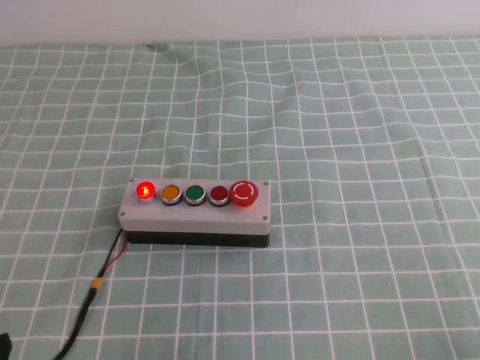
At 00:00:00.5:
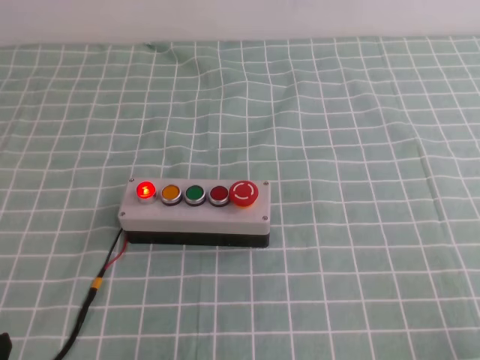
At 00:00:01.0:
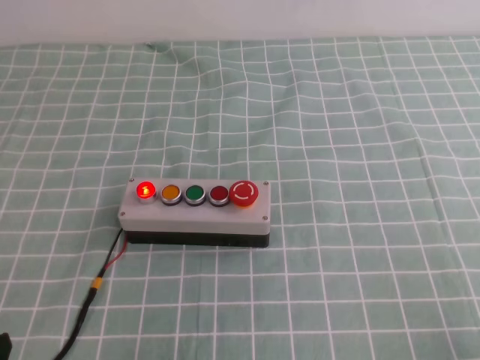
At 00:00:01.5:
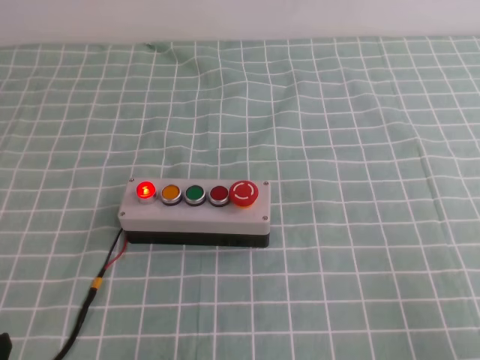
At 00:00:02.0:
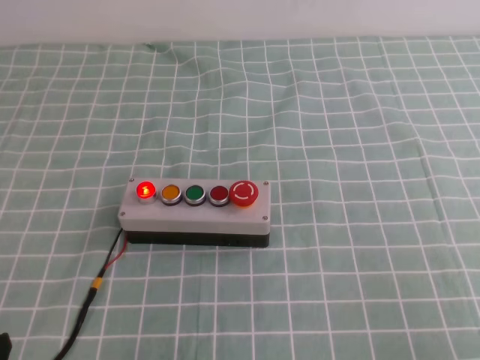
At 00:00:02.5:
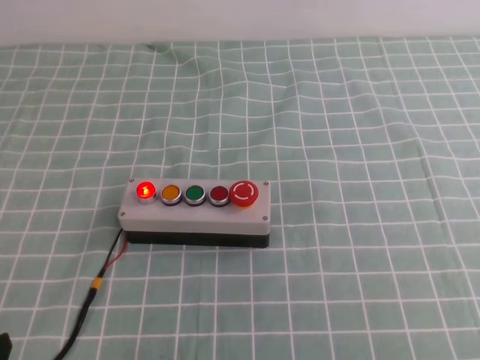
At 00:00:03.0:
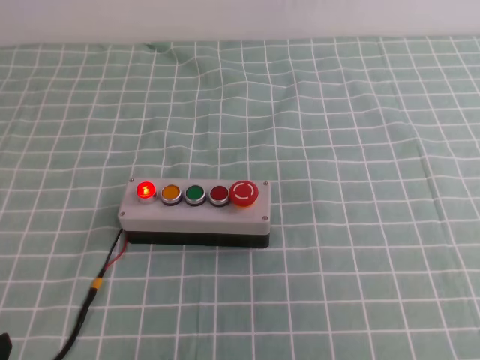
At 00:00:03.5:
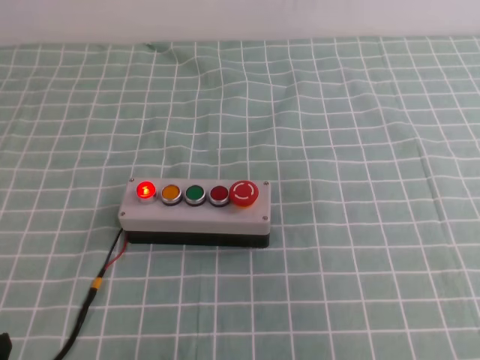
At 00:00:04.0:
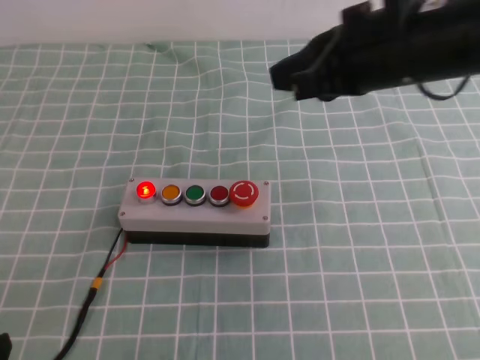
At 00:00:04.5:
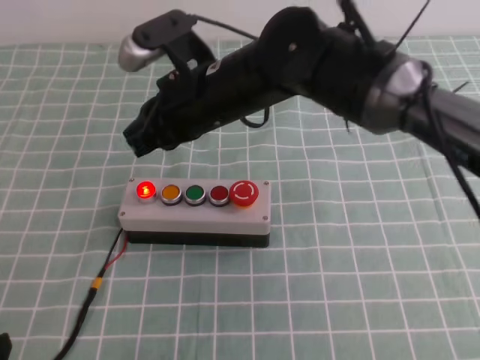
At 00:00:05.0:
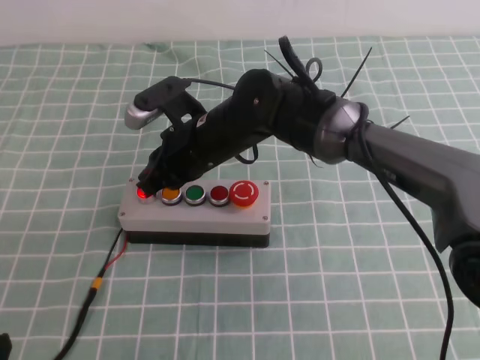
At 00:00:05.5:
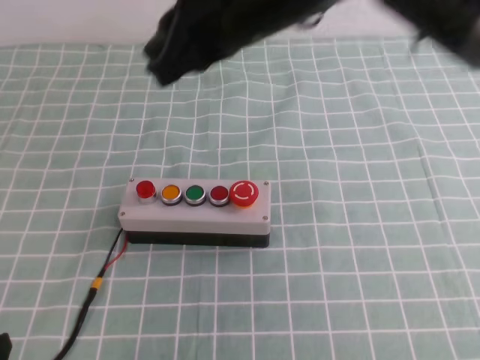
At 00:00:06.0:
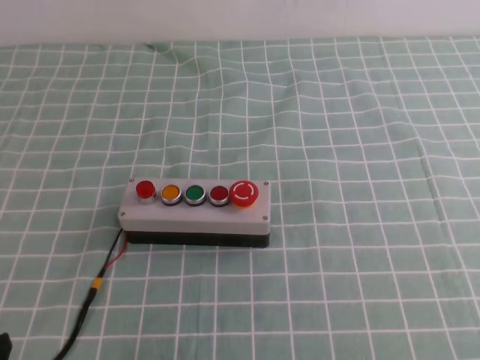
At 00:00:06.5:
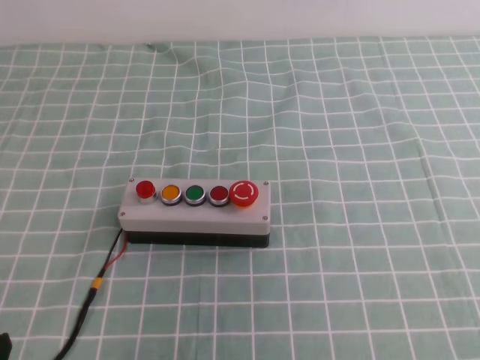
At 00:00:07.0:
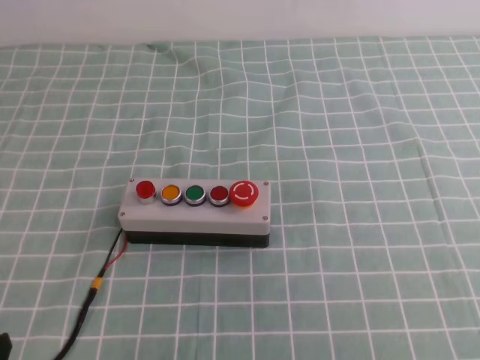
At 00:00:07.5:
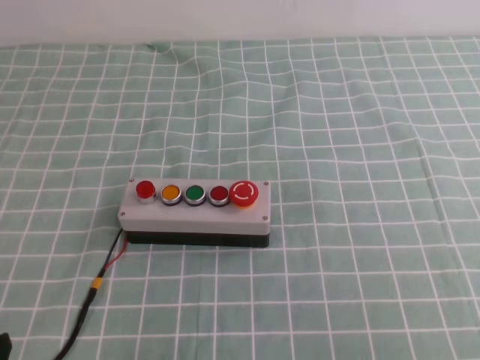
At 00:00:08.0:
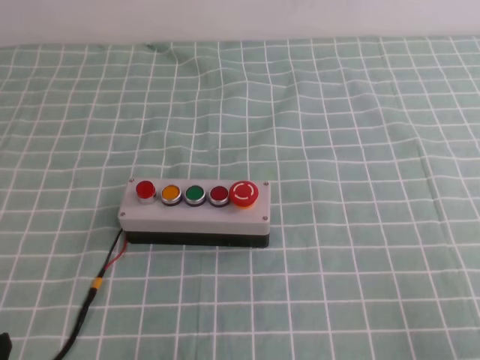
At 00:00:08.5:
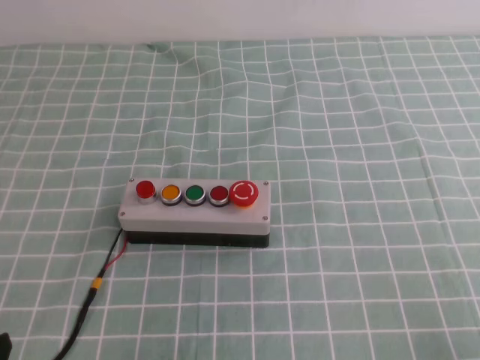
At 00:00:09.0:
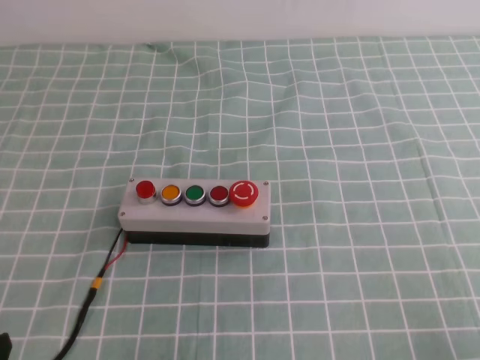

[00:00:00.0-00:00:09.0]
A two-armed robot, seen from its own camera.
Task of the whole recording: press the button switch on the cyan tablecloth with the right gripper to turn off the button.
Step, 00:00:00.0 to 00:00:09.0: Press the button to turn off.
00:00:02.0 to 00:00:04.5: The right gripper travels to the left and forward by roughly 50 cm.
00:00:04.5 to 00:00:07.0: The right gripper heads backward and to the right, covering about 40 cm.
